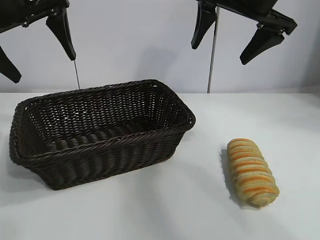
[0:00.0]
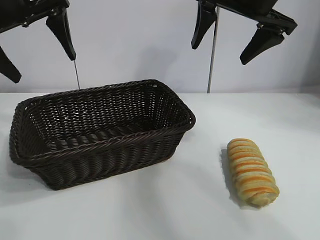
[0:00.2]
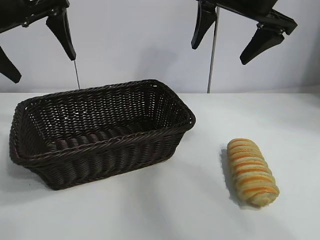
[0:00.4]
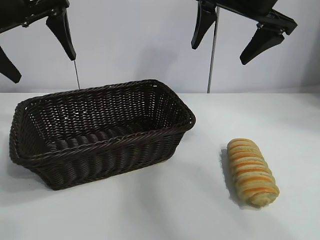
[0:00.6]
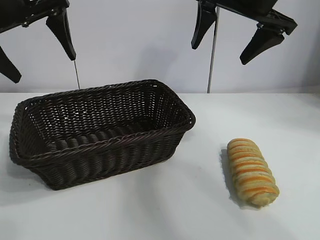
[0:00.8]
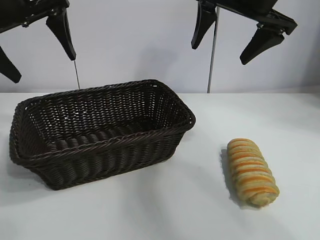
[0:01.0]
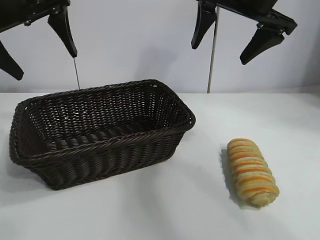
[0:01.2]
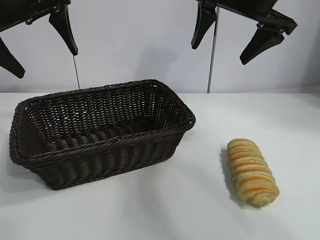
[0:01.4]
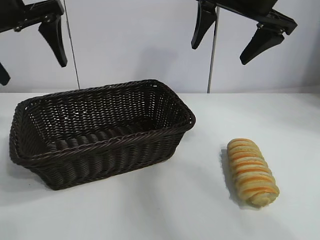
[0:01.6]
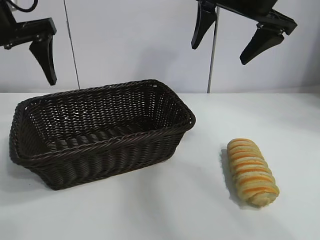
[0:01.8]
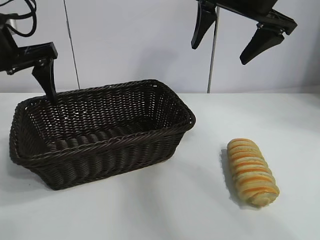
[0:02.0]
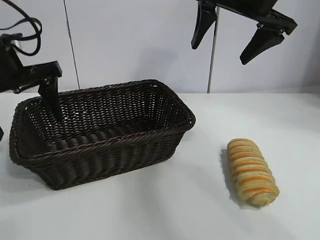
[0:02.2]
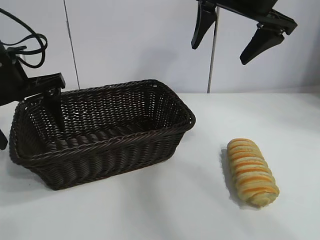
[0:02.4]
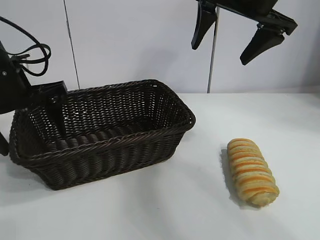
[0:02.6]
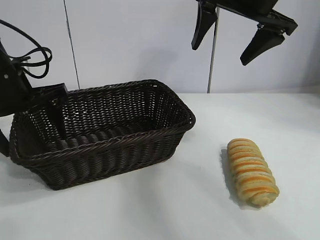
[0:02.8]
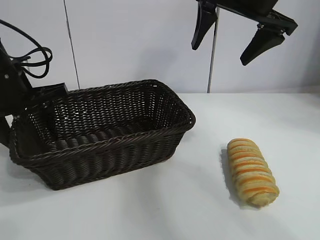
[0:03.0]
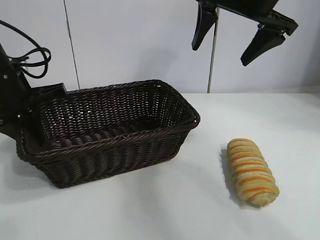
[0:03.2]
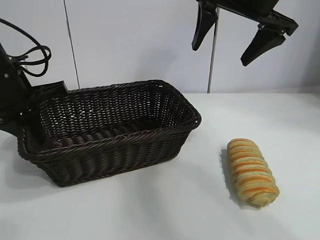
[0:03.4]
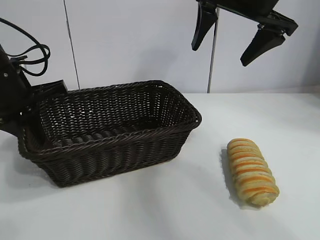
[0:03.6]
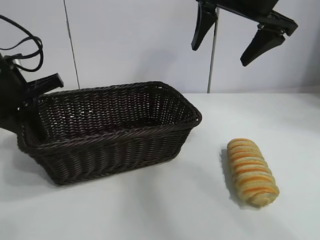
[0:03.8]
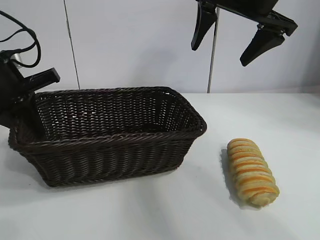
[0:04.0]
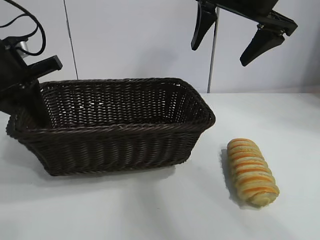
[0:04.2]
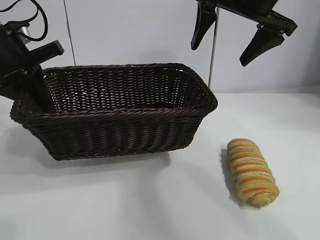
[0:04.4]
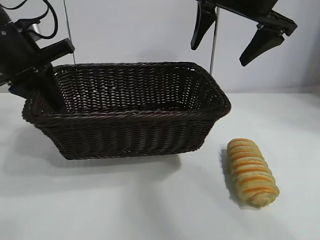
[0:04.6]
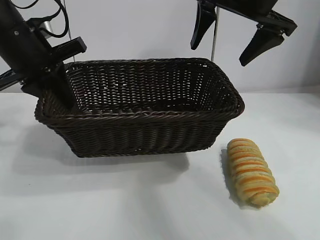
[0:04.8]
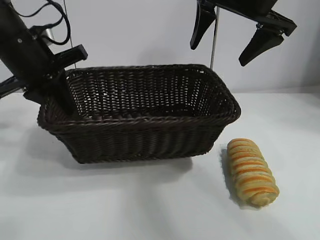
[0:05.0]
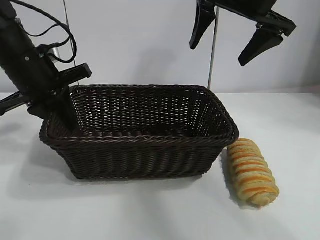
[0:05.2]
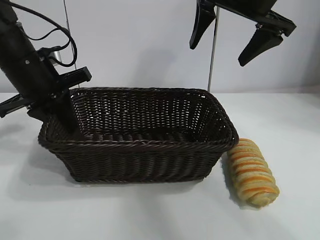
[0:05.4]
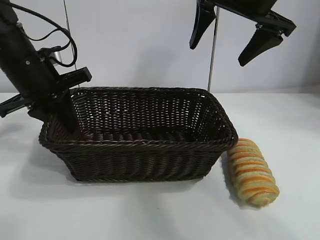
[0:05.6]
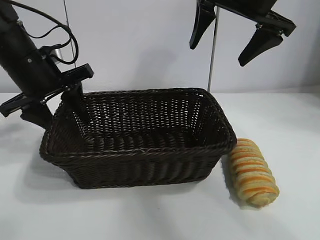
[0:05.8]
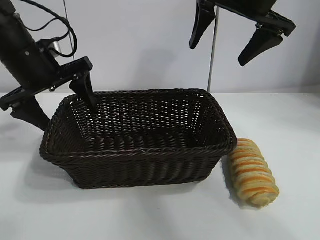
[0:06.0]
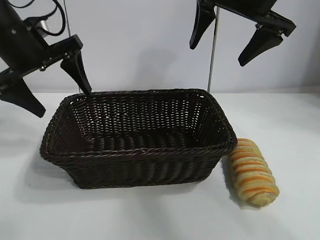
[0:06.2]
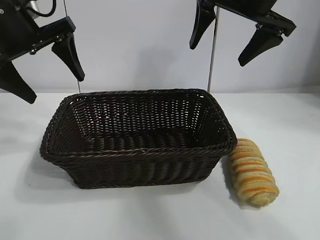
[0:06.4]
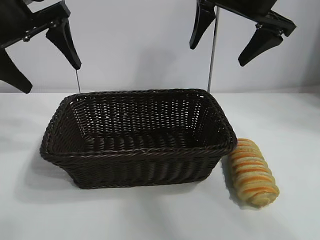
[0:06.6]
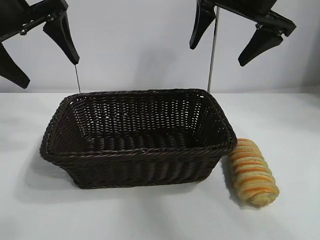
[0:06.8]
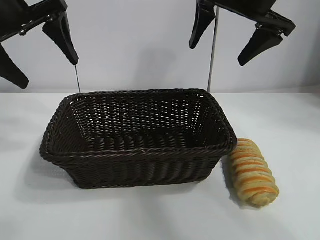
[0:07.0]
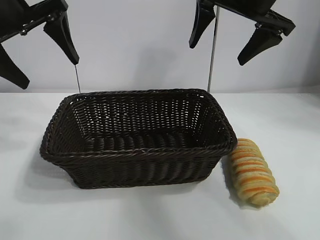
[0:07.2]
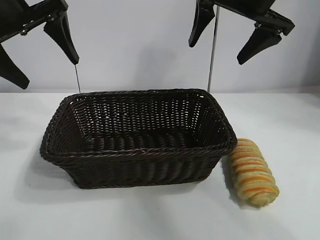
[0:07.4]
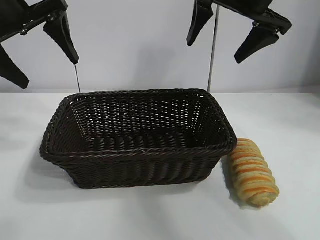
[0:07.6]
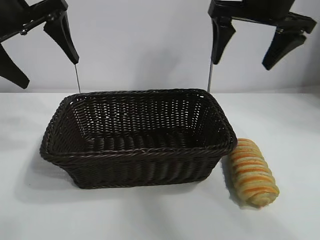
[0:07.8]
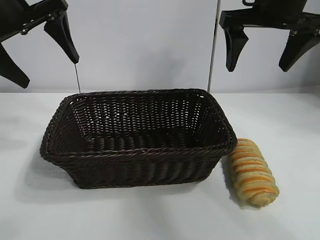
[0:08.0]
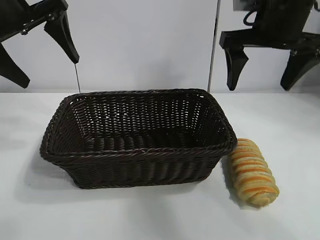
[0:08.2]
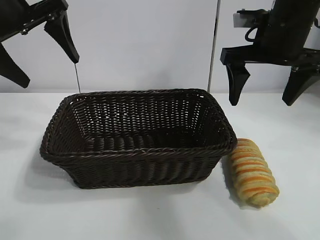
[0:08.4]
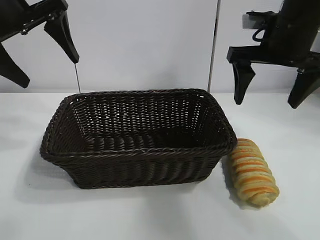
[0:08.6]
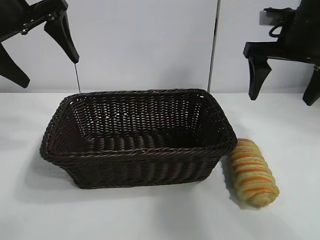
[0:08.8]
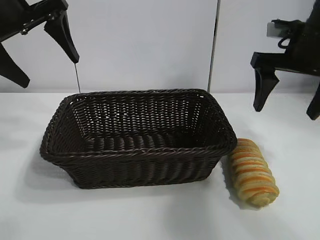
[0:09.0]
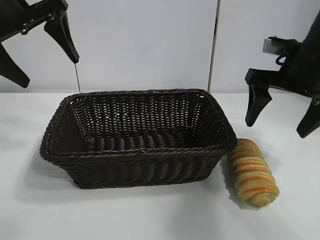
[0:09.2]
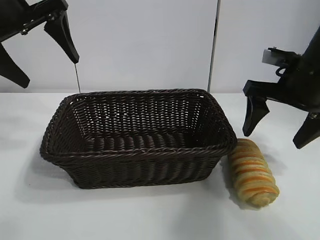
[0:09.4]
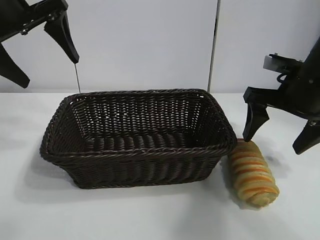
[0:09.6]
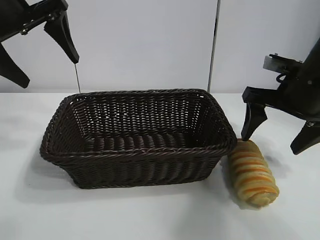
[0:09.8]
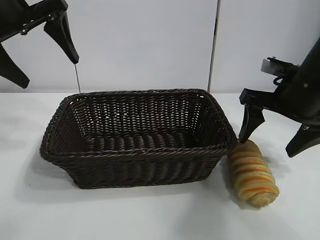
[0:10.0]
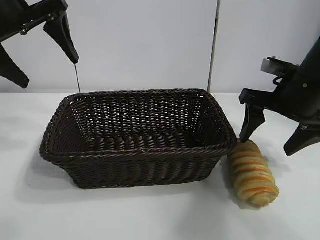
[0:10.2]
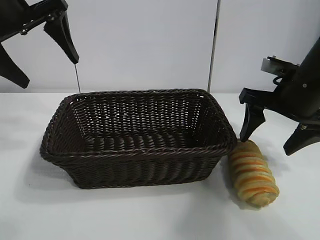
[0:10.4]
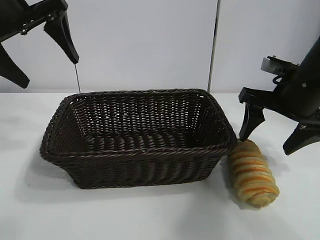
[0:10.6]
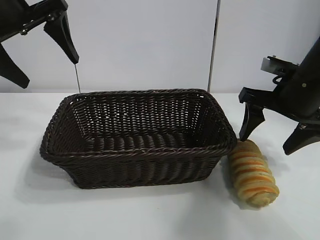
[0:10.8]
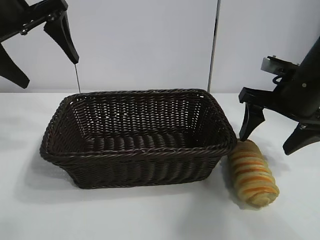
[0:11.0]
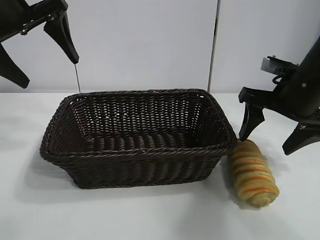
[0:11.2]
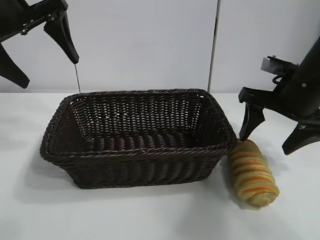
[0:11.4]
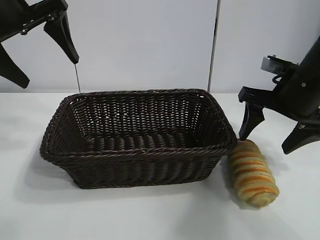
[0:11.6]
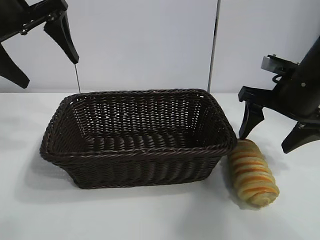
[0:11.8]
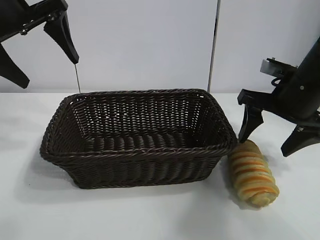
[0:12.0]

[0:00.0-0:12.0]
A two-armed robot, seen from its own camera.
Task of the whole recording: pick up the long bread and put it into the basket.
Step, 0:01.0 to 0:03.2: Grasp the basket with the left gripper.
Step, 0:03.4 to 0:05.8: Place the basket in the center of the table with the left gripper.

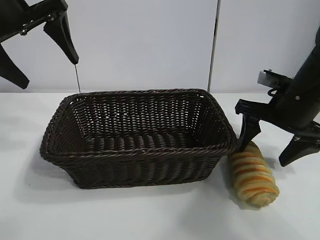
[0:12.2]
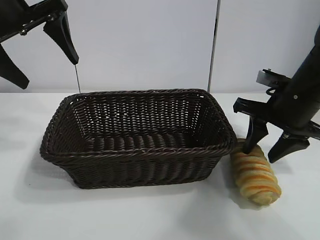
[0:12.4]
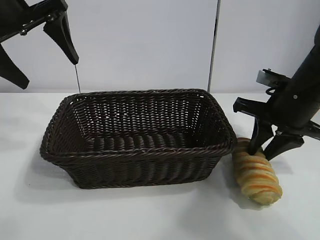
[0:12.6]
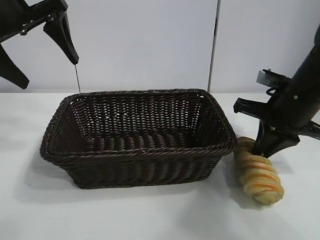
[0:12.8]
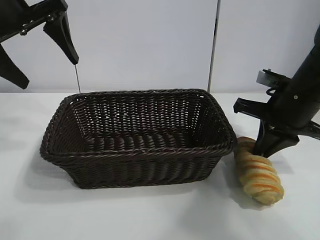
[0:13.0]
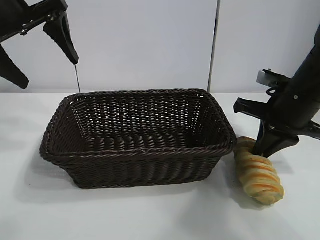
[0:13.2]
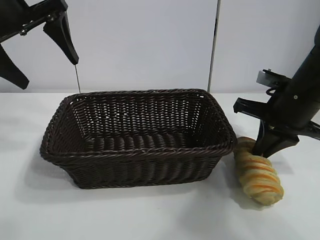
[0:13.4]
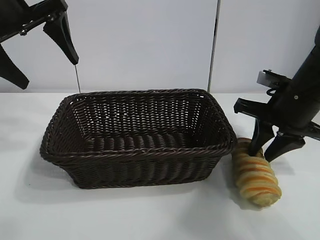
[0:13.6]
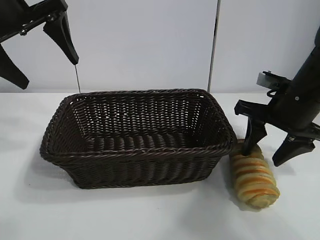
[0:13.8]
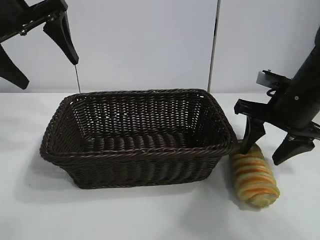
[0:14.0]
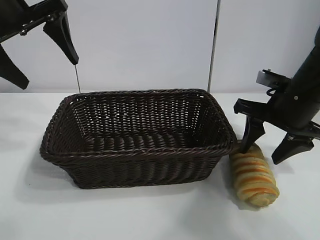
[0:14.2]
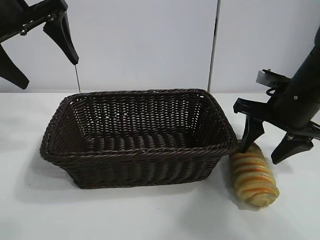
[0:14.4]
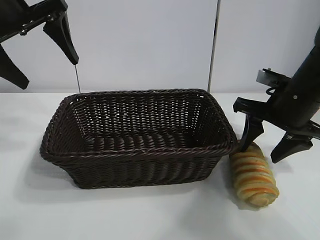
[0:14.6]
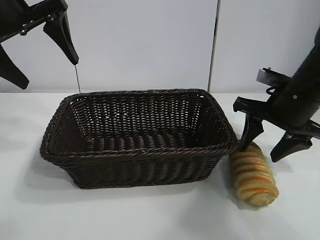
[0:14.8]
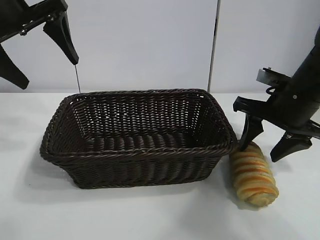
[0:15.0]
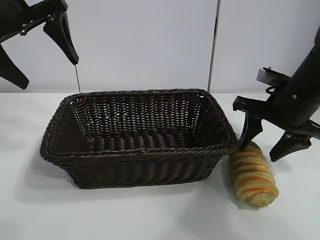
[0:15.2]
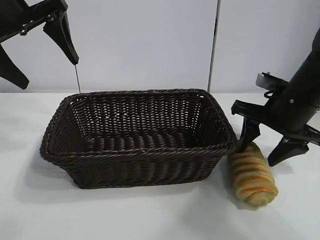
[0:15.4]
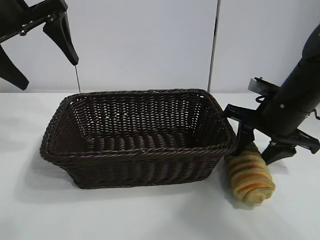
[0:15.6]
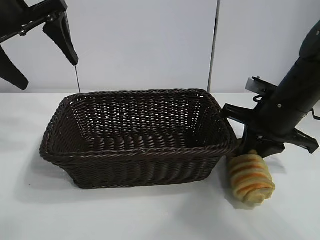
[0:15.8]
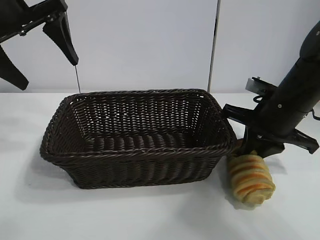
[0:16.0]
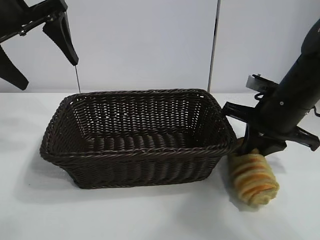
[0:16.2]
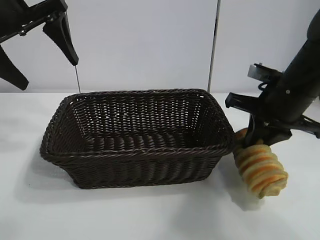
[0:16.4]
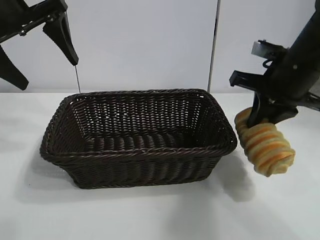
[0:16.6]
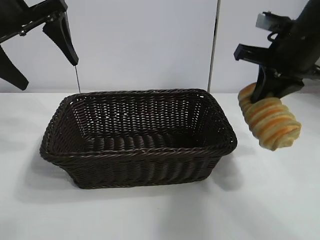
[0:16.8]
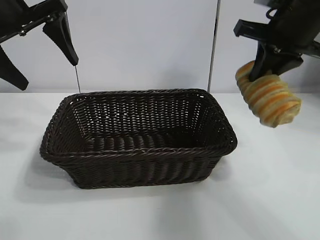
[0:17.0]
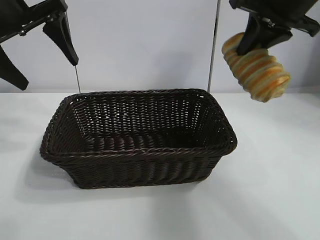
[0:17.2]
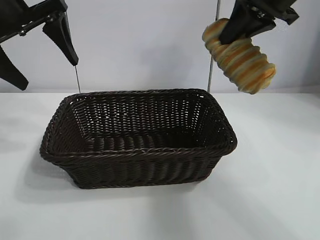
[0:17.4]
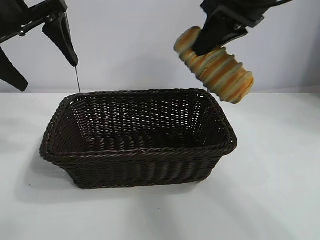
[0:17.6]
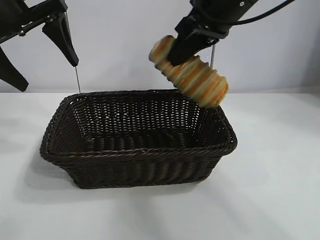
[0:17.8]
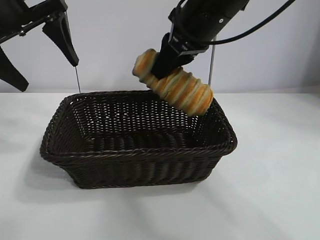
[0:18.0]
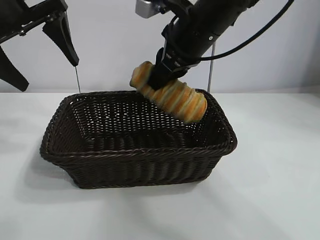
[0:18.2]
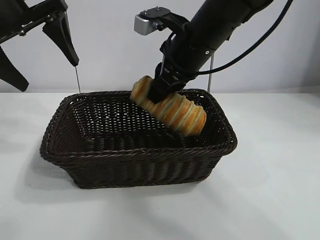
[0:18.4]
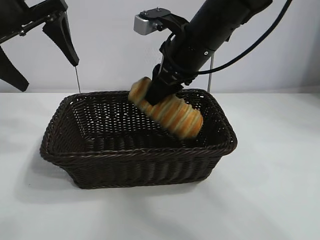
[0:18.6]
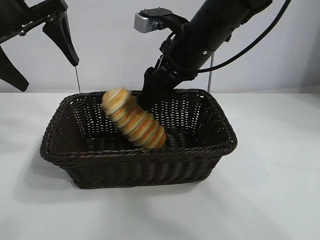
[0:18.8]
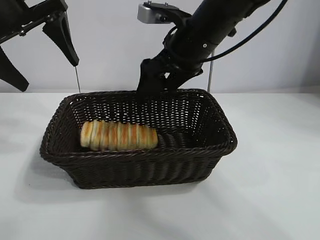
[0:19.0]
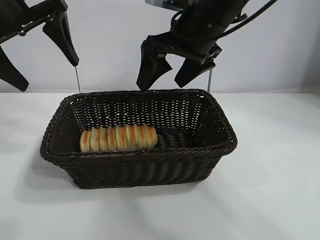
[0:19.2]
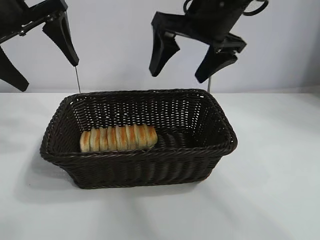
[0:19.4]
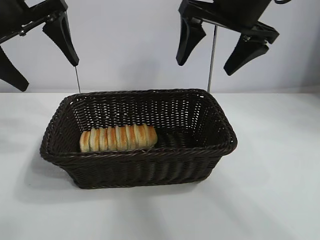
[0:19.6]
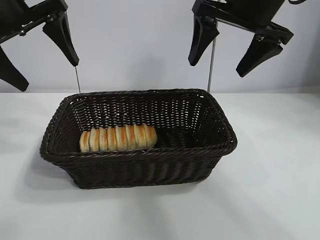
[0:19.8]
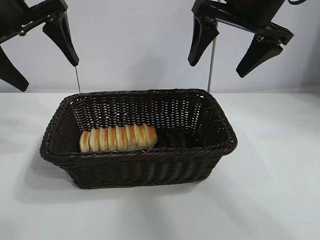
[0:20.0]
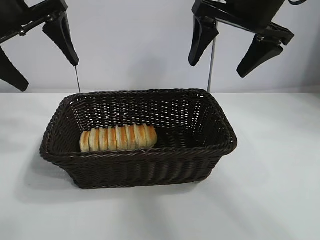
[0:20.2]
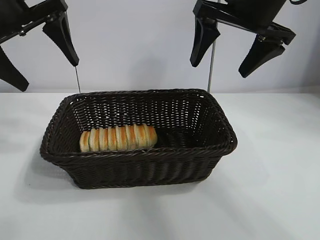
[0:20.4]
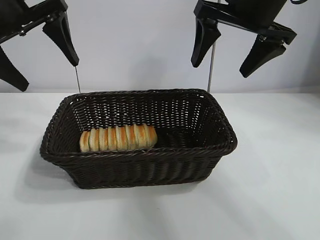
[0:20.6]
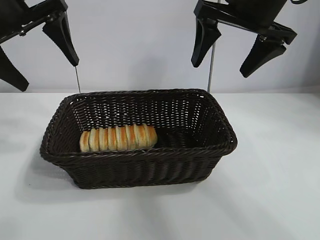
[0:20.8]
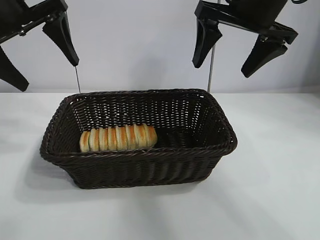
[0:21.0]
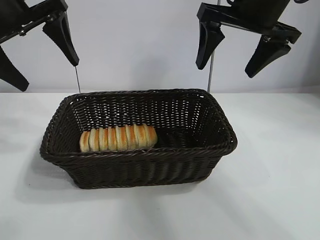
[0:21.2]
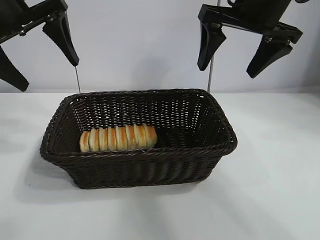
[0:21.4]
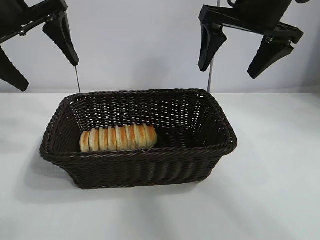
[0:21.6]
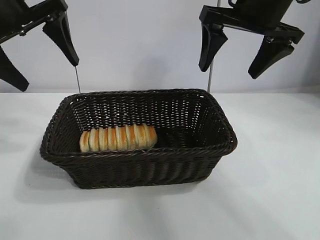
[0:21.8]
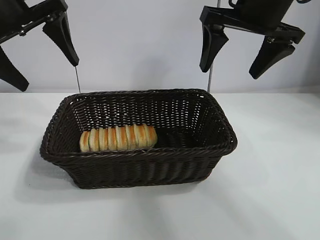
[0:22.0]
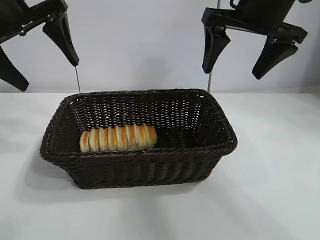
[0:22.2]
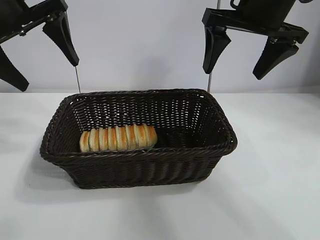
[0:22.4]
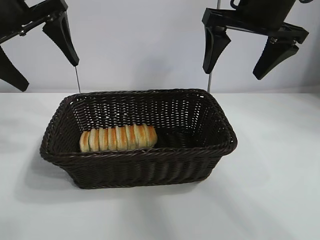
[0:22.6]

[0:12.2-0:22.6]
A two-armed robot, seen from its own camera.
Task of the whole recording: pick up the long bread and put it into the basket.
Step, 0:12.2 to 0:15.8: Grasp the long bread with right gripper.
Step, 0:16.0 to 0:19.2: Place the long bread in the basket with right gripper.
